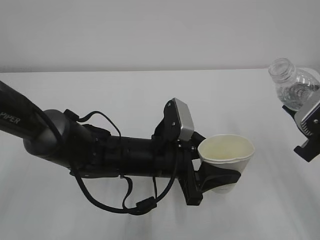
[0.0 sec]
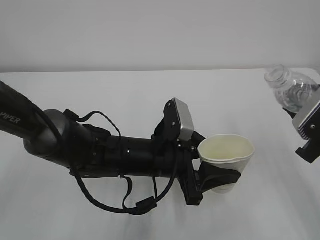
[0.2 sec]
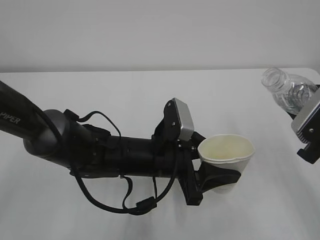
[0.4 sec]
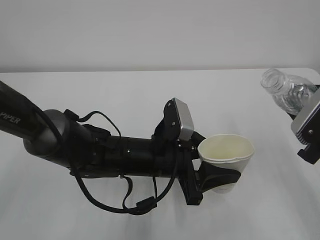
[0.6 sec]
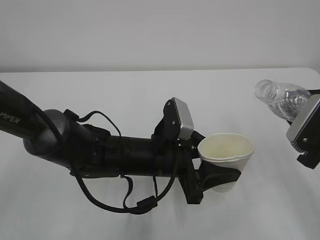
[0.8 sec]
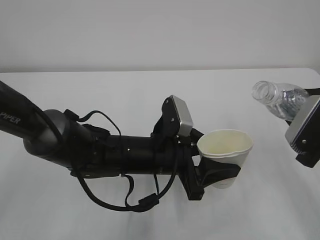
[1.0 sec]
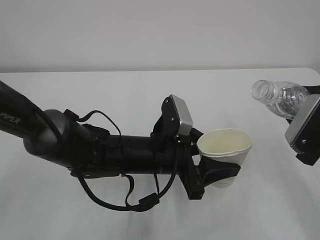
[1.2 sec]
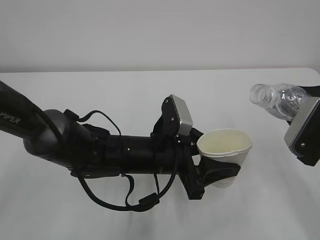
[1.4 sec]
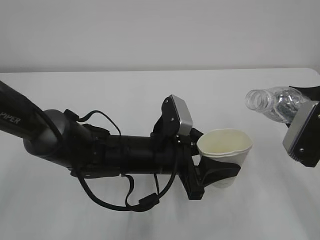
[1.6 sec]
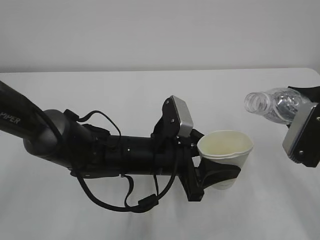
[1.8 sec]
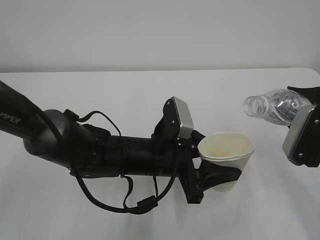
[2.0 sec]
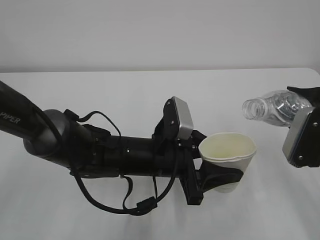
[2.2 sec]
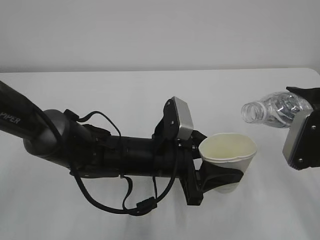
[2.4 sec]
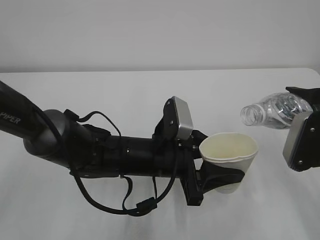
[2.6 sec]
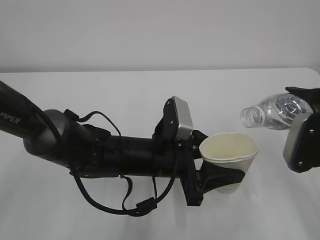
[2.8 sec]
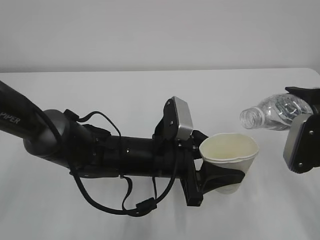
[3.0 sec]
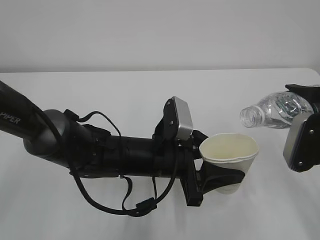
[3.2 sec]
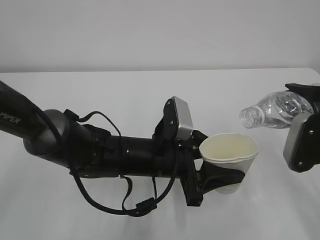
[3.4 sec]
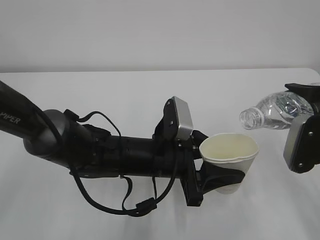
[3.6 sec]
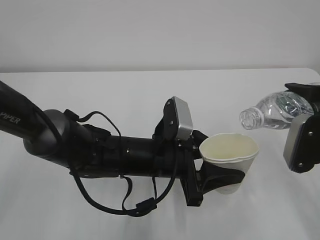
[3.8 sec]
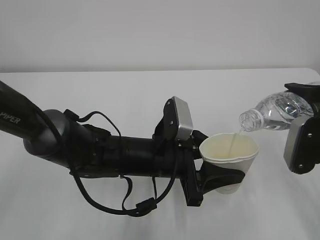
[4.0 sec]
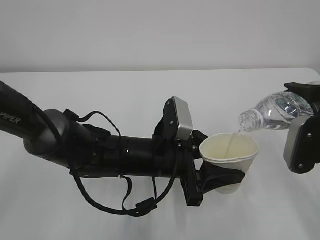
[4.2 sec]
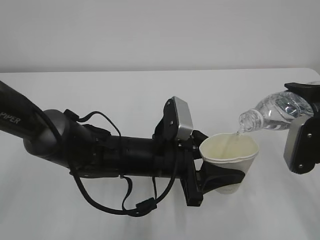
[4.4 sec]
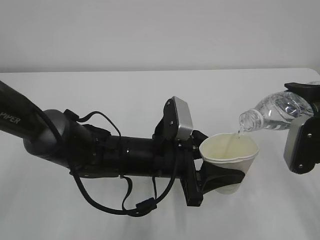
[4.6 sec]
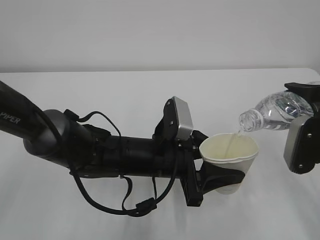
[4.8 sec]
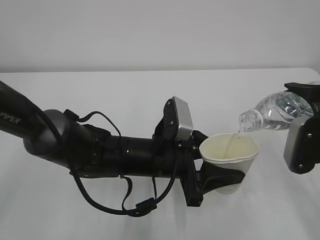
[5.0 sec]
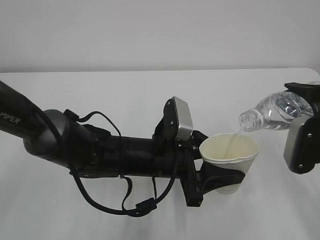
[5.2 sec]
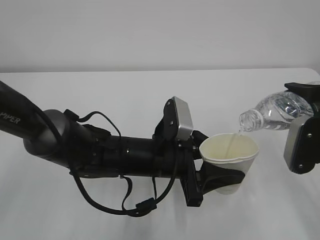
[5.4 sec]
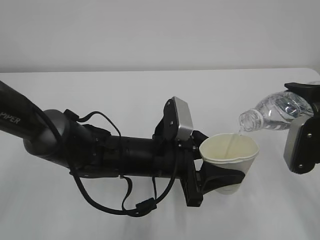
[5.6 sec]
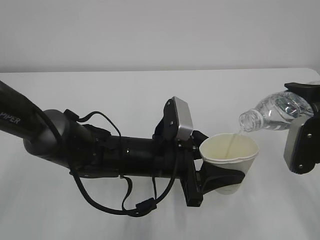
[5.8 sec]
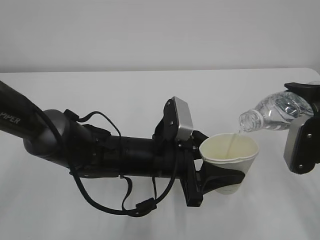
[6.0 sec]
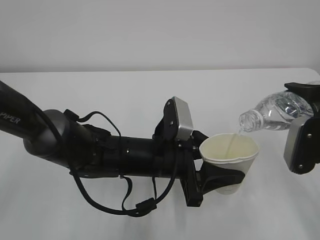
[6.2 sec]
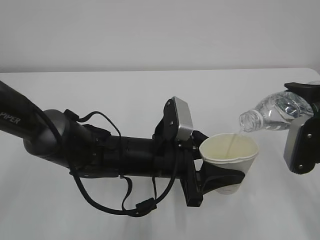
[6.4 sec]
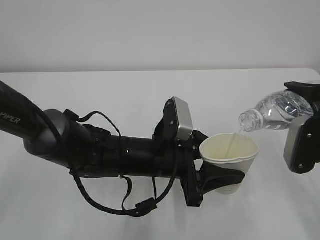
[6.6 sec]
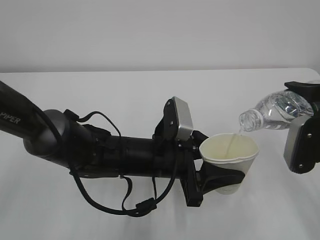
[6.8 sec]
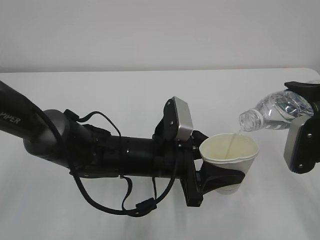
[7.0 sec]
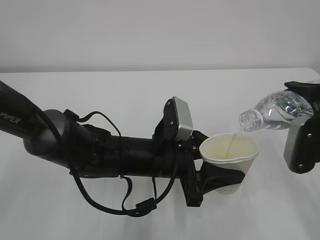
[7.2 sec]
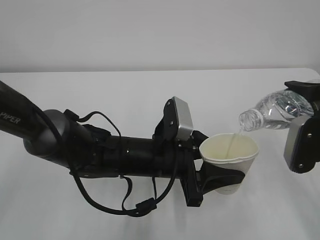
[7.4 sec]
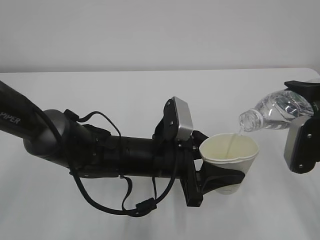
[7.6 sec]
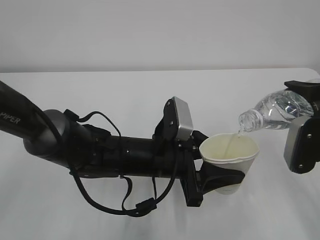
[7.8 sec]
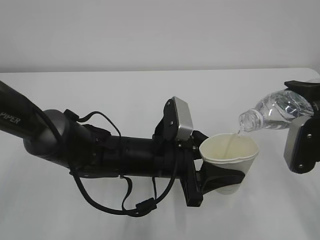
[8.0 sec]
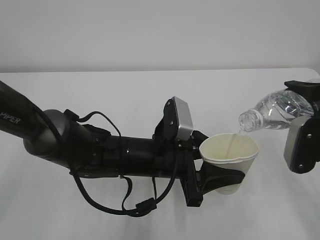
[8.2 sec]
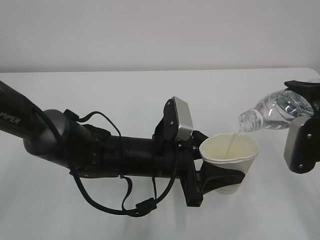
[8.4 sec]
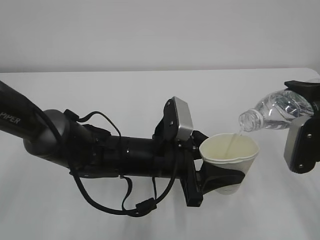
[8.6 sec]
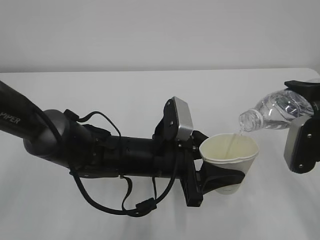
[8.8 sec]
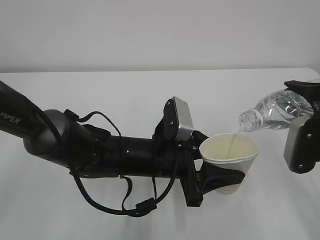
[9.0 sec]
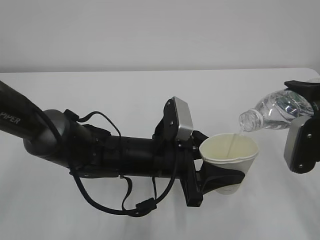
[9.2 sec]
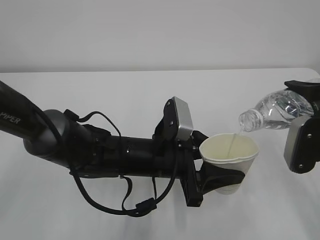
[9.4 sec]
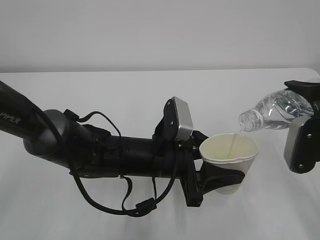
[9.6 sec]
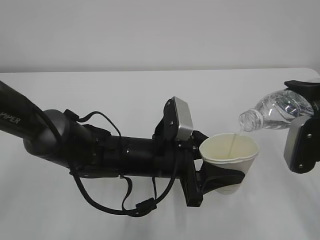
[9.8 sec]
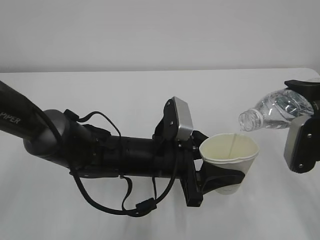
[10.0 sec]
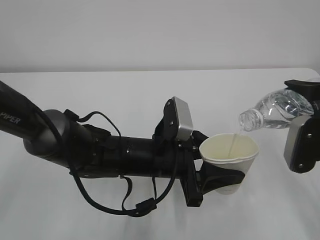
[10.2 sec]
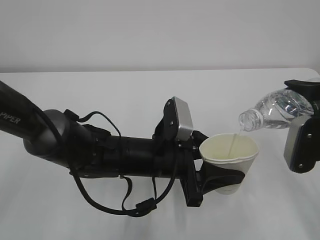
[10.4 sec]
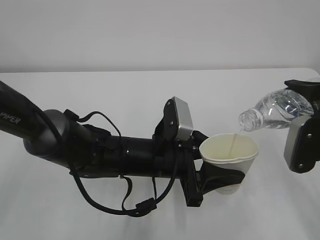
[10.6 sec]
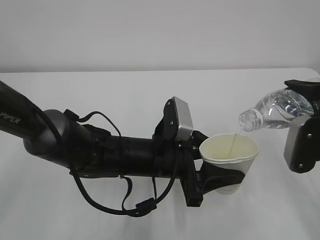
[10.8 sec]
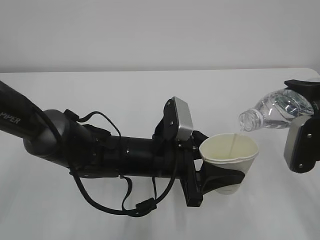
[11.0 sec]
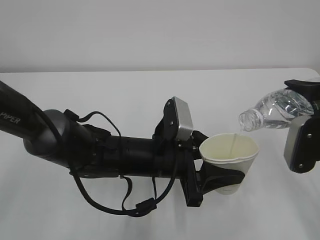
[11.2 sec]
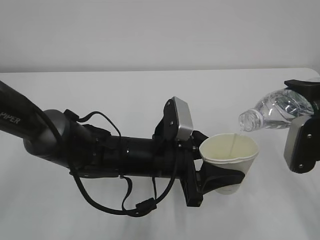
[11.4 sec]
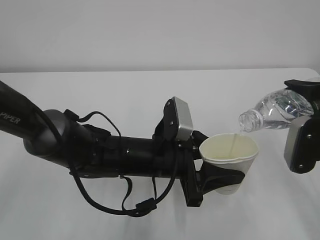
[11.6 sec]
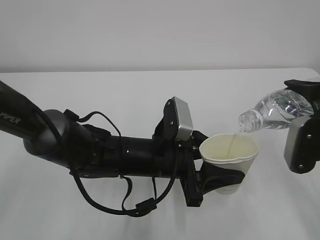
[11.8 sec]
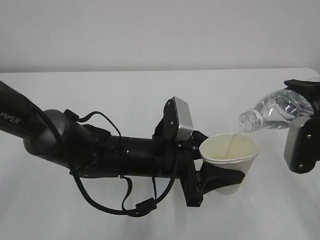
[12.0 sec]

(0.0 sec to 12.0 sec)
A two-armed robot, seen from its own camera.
1.6 sec - 3.0 sec: The grippers stay close to where they were, moving slightly.
3.0 sec - 4.4 sec: Neither gripper changes place.
4.4 sec - 12.0 sec: Both grippers stay about where they are.

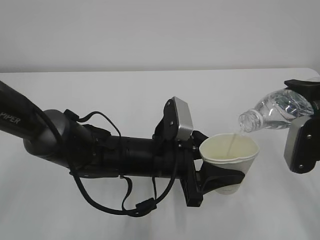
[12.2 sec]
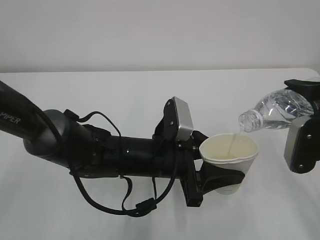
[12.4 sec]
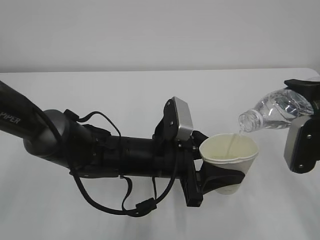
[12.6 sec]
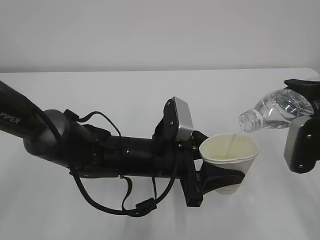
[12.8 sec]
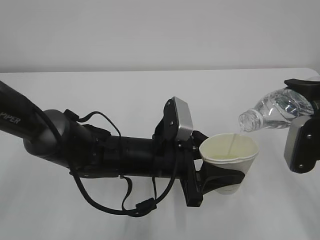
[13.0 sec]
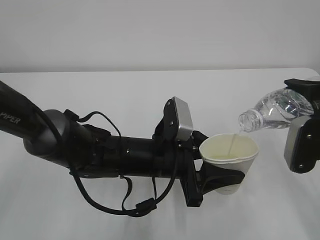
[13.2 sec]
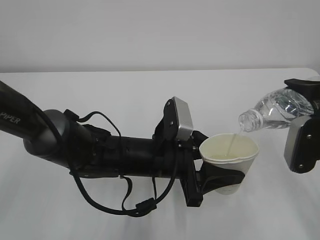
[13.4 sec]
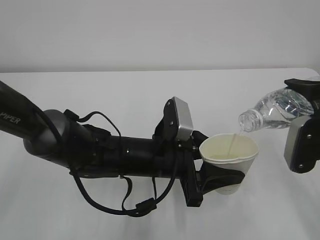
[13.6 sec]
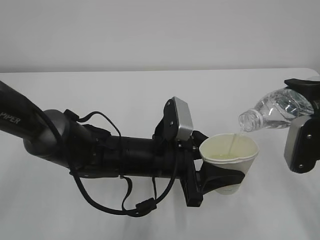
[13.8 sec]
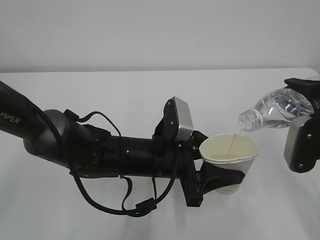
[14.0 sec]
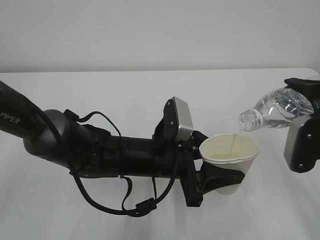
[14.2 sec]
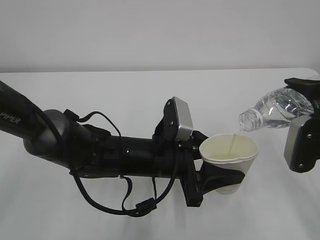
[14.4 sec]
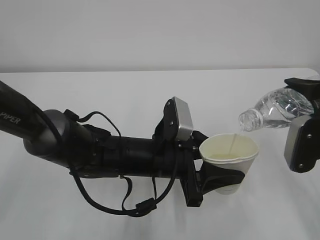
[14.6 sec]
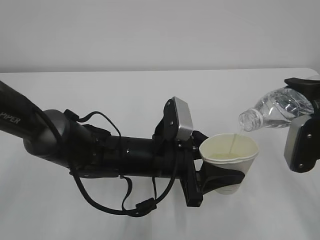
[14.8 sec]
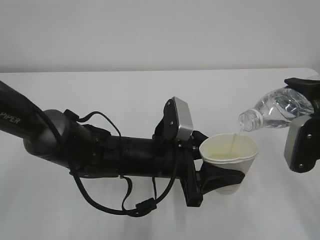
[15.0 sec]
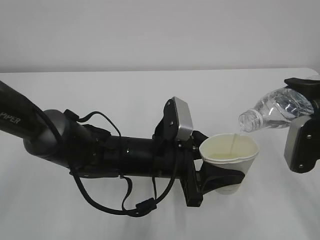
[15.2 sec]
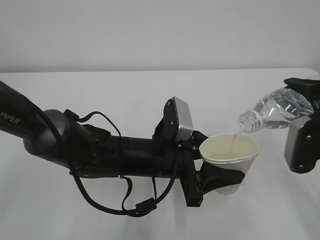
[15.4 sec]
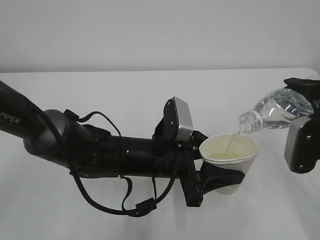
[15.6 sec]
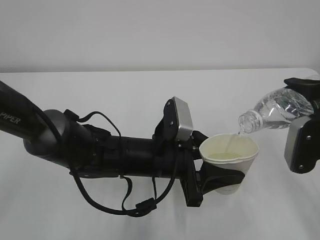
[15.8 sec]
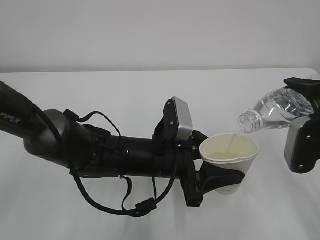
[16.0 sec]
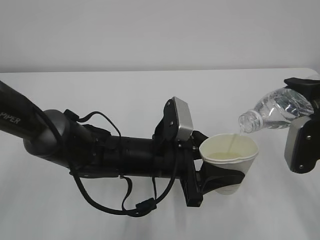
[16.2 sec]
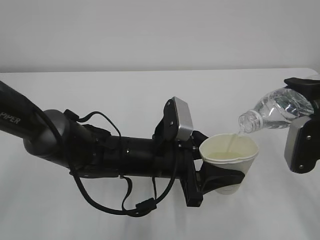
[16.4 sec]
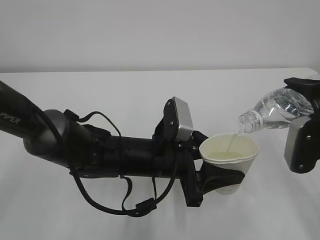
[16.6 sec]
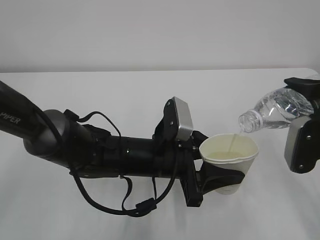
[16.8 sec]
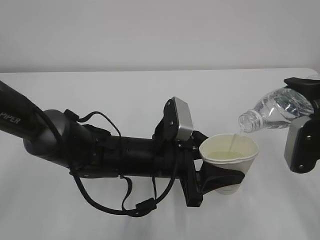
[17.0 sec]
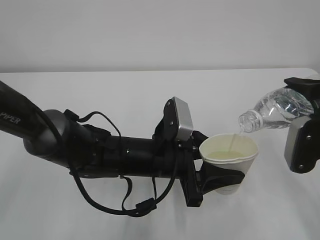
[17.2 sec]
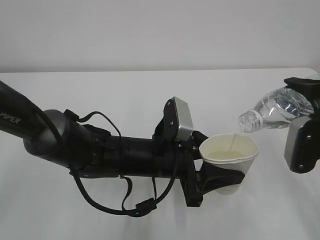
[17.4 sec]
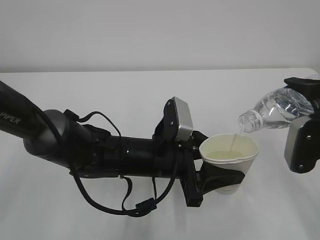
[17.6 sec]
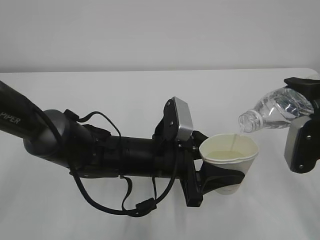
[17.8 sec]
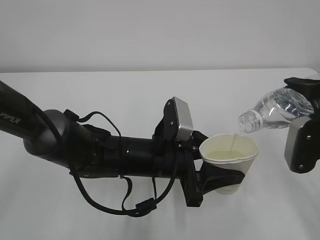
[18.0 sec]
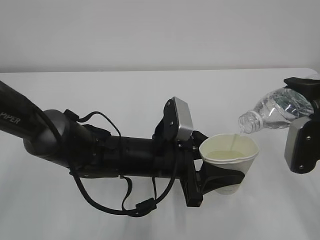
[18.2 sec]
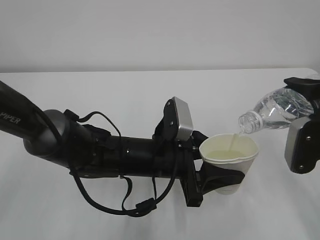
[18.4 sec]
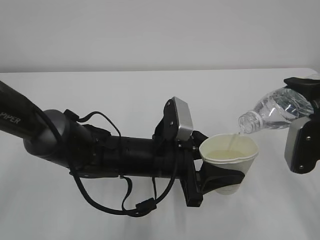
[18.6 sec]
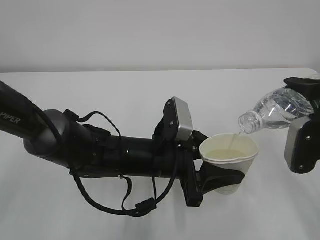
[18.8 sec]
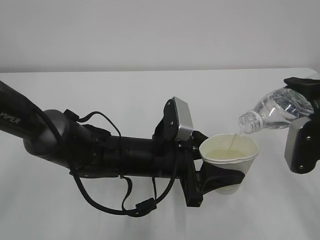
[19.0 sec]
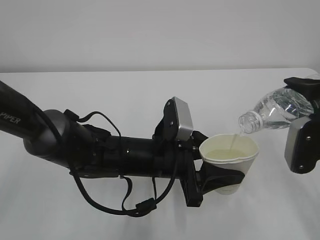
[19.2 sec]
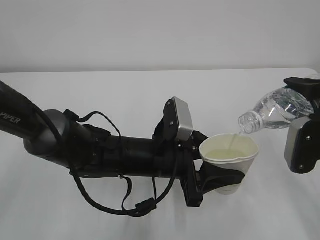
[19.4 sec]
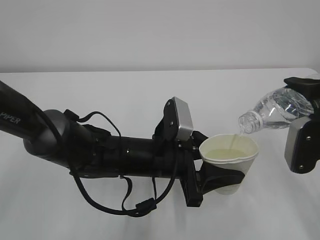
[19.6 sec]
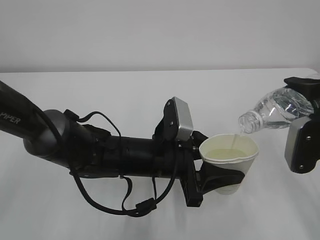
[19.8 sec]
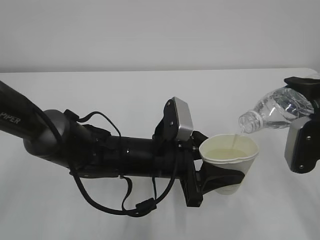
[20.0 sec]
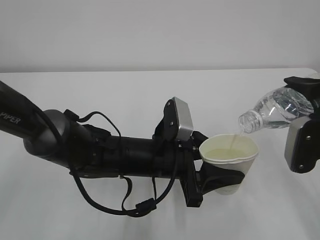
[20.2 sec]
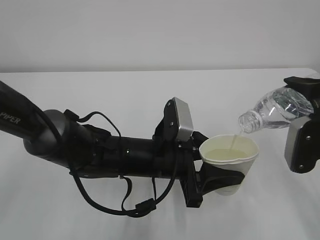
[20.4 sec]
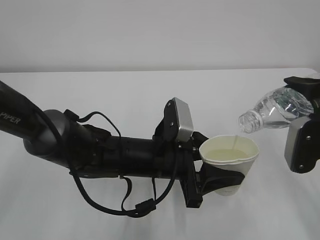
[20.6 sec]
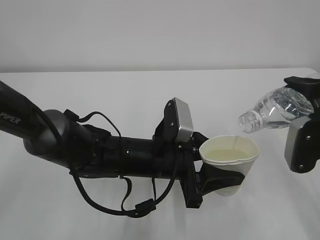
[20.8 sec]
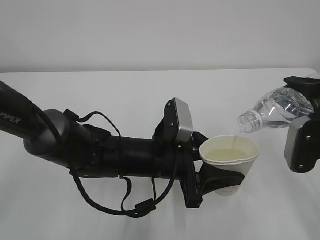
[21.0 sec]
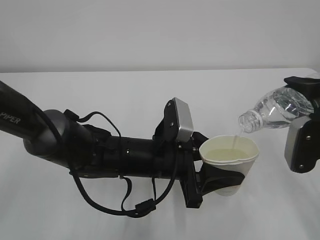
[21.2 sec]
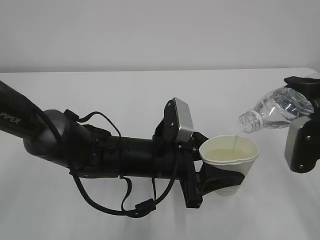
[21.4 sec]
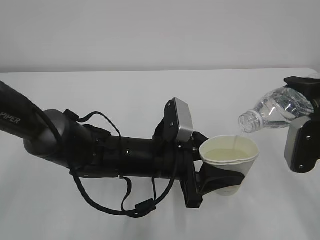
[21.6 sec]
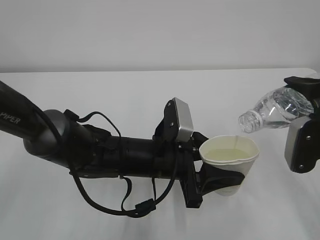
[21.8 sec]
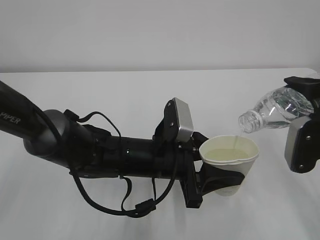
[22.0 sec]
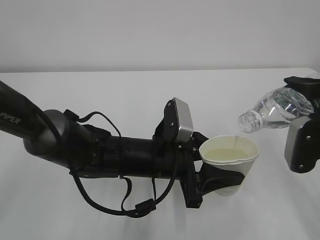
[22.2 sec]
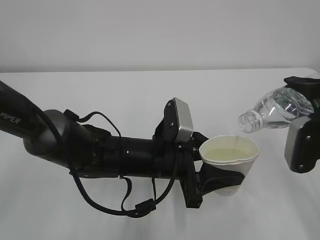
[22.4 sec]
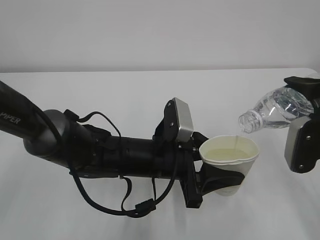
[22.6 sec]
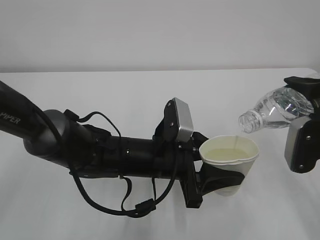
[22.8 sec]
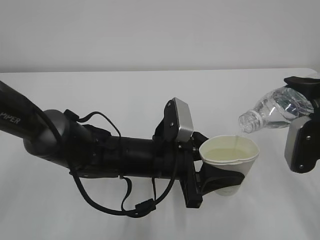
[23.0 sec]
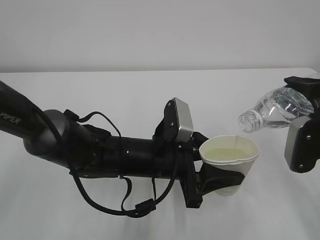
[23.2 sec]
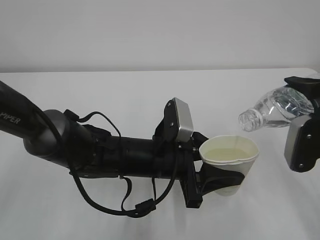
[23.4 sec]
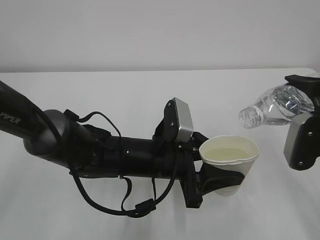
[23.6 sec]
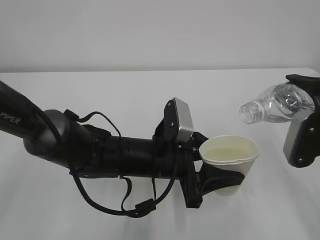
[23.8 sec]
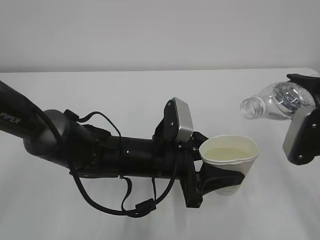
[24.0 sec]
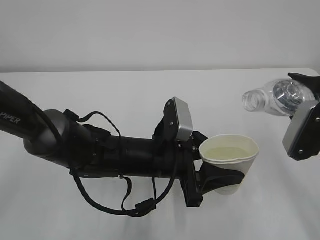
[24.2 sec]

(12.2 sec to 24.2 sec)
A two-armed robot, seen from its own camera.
12.2 sec - 22.6 sec: The two grippers keep their place.
22.6 sec - 24.2 sec: The grippers make only small movements.
